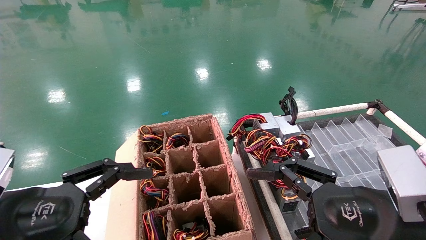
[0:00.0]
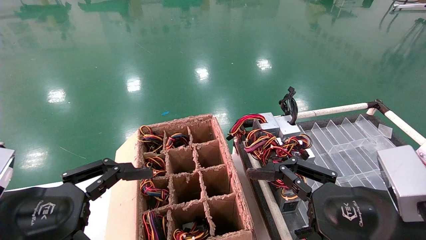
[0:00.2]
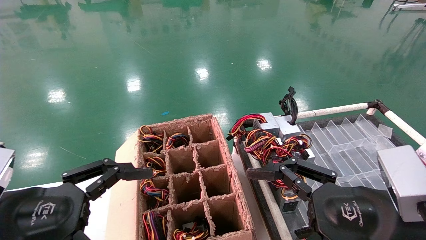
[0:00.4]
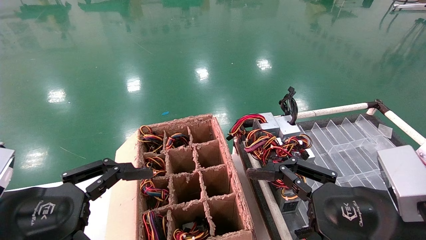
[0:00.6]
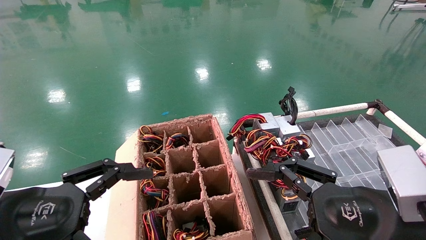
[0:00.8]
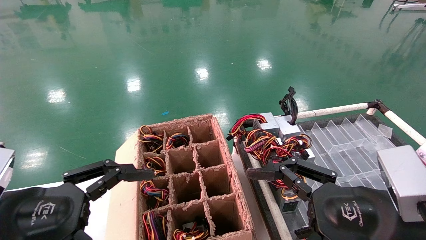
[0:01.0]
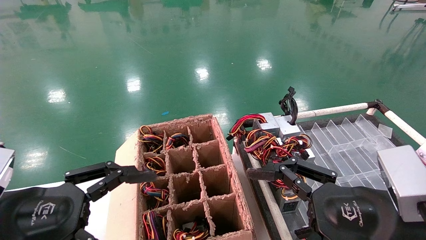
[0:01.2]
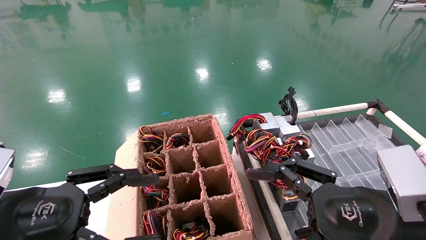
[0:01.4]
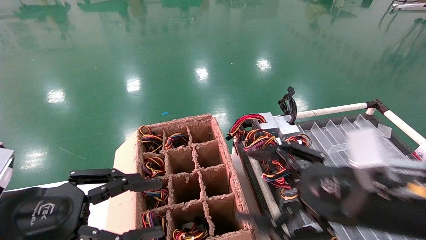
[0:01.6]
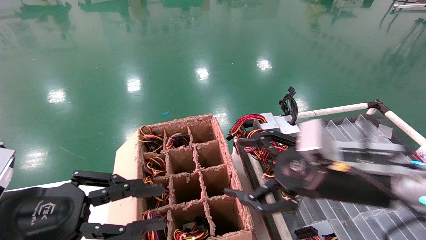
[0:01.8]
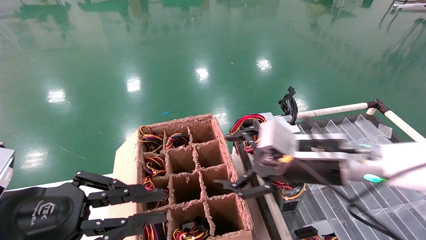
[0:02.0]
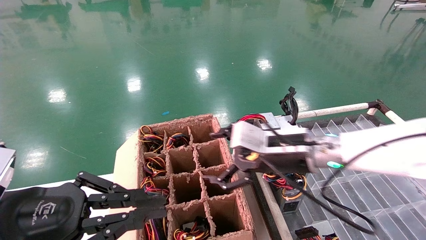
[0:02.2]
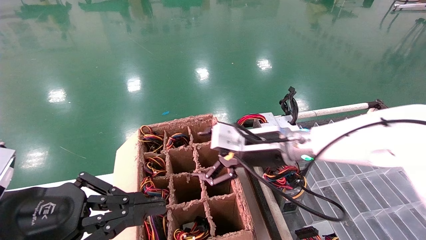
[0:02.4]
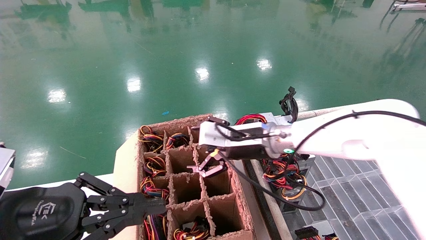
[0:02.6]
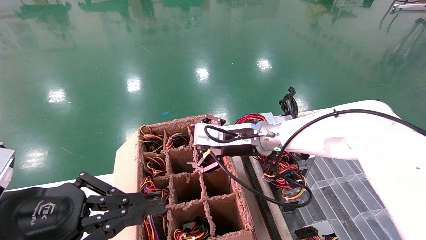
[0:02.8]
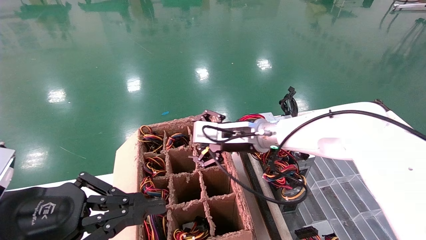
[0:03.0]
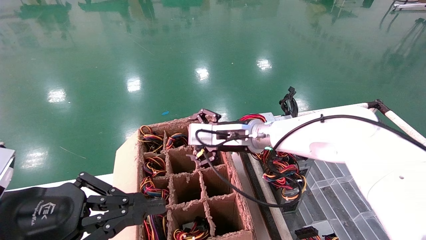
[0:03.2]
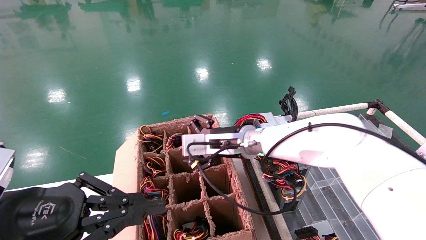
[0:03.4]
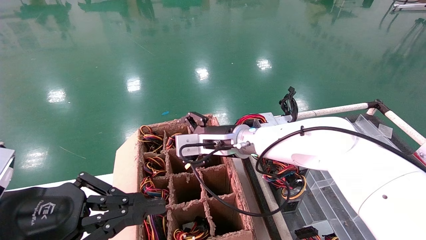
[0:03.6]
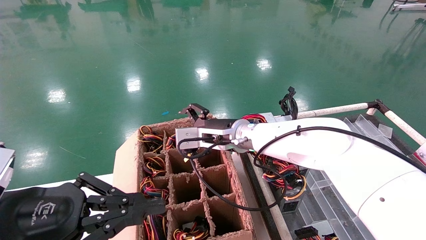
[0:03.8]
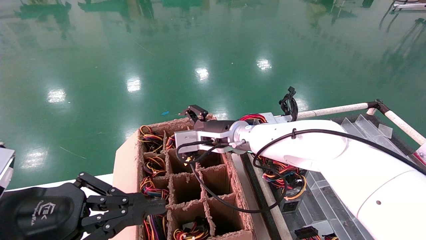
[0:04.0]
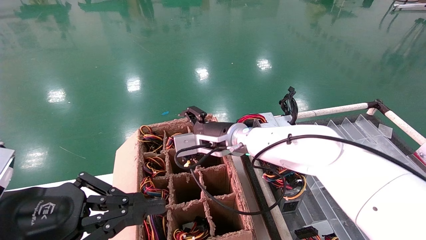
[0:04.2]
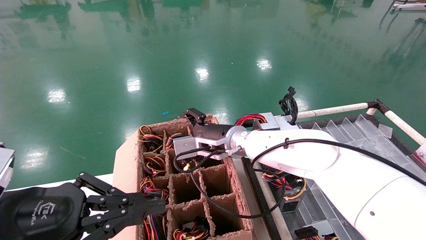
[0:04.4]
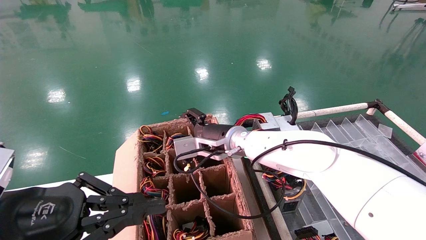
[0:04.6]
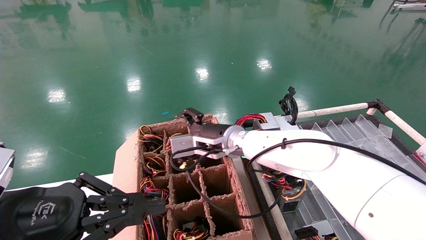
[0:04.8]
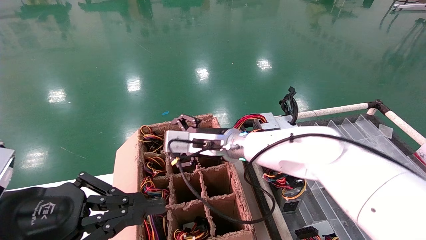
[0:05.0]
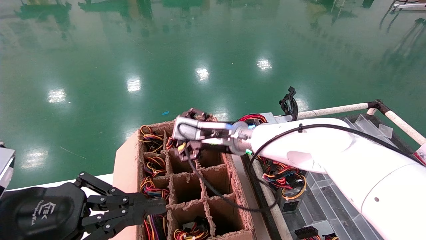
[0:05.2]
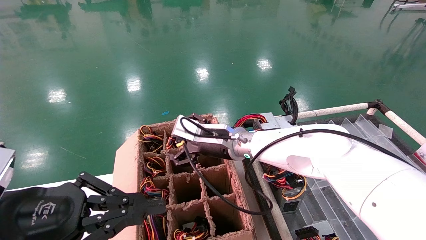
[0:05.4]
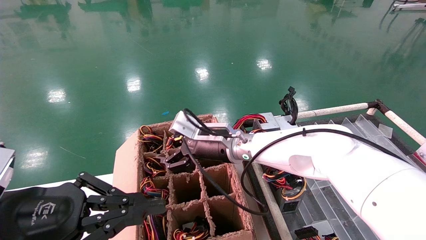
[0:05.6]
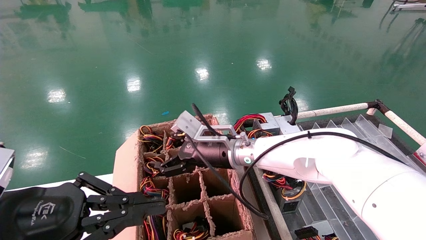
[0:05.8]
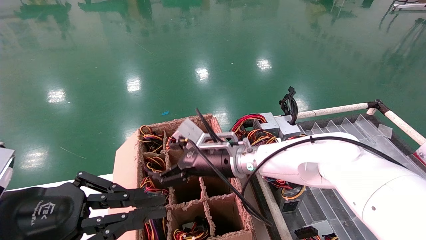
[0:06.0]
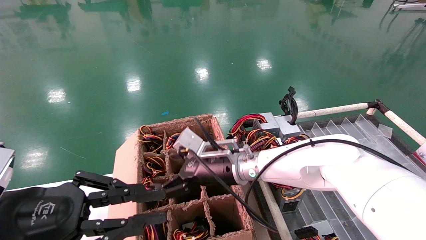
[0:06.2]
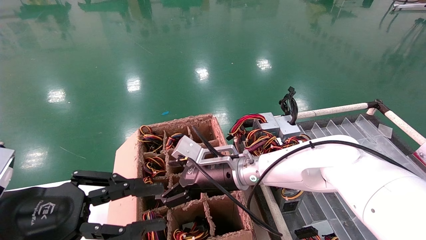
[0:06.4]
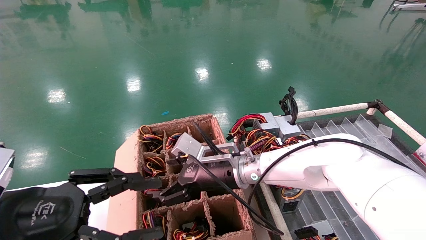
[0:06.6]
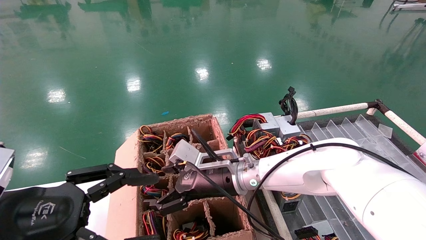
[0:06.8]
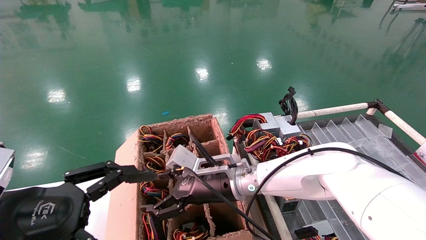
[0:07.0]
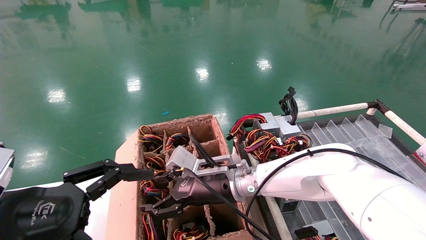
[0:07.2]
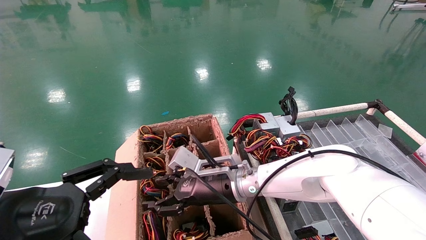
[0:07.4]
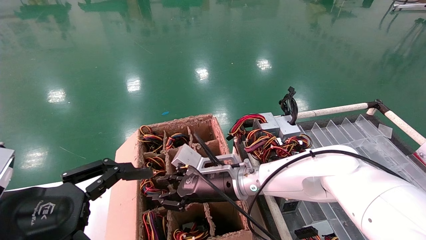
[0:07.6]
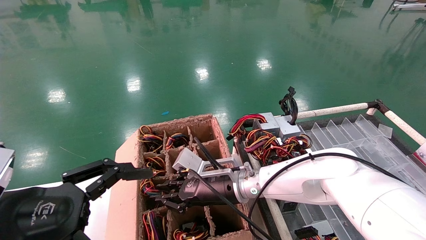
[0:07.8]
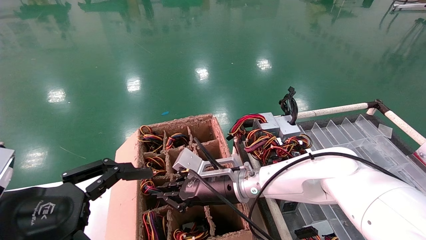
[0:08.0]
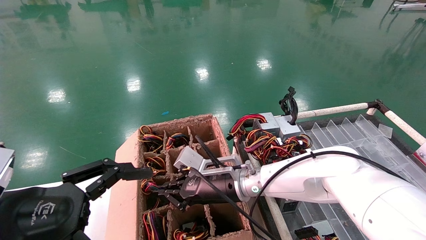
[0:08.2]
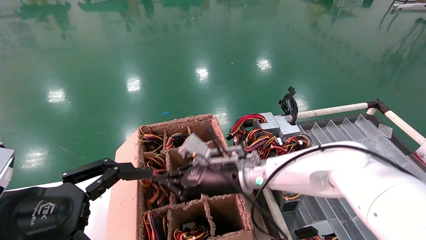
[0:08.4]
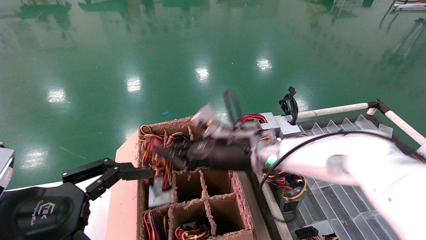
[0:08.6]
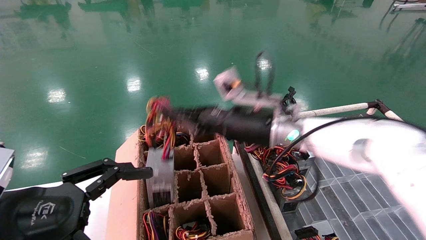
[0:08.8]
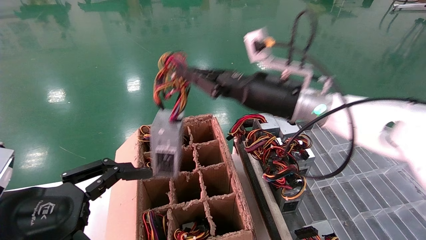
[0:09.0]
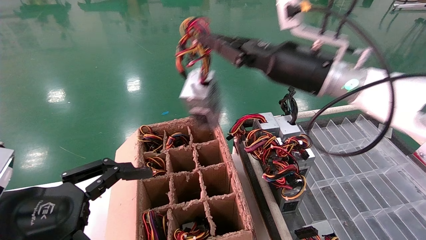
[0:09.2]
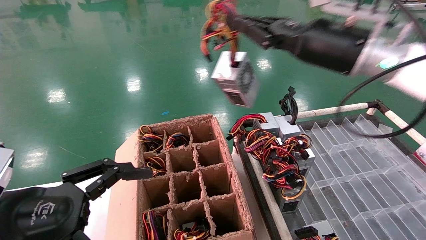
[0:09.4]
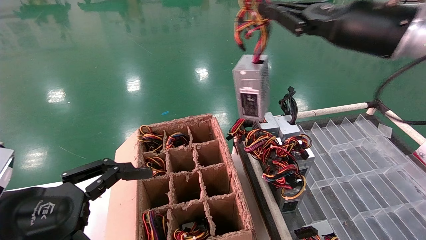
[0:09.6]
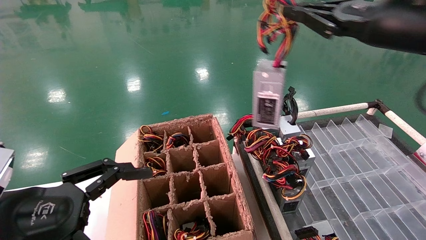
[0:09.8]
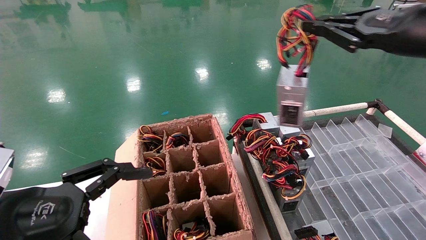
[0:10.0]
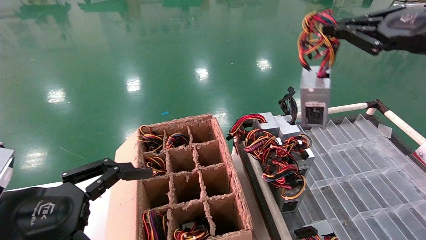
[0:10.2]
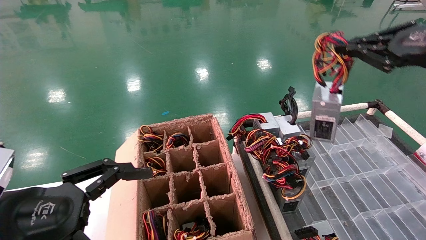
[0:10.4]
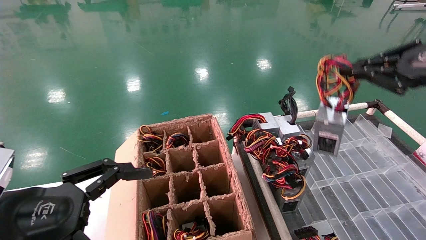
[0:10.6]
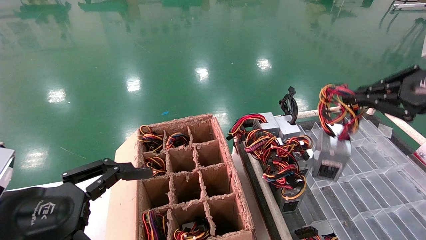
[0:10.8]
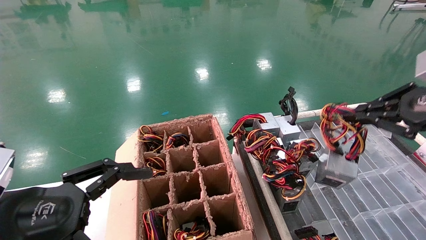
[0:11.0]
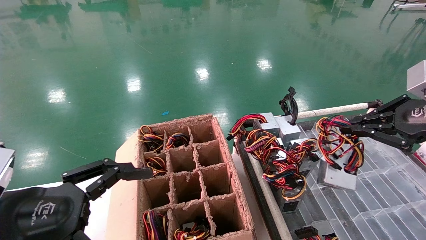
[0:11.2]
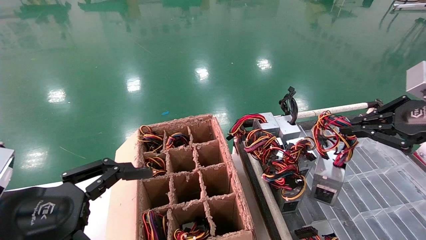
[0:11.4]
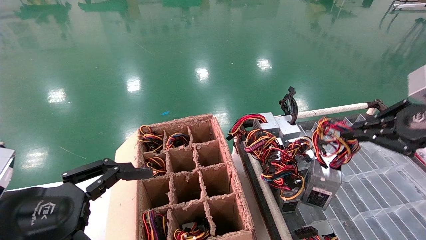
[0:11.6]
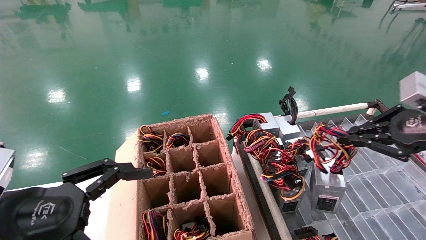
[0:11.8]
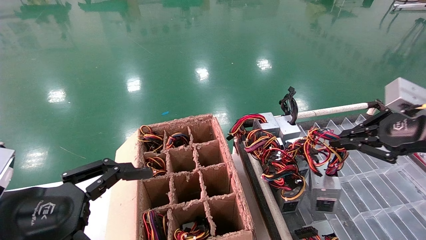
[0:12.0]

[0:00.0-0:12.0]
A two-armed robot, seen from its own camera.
Step, 0:01.4 to 0:08.2: Grab and lift the power supply from the large box.
0:00.0 to 0:01.6: The left gripper closes its fingers.
0:01.6 to 0:03.0: The right gripper goes about 25 cm forward and to the left, while the left gripper closes up.
0:03.0 to 0:04.4: The right gripper moves approximately 5 cm.
0:06.0 to 0:07.6: The left gripper opens up, while the right gripper closes.
0:07.6 to 0:09.0: The right gripper goes some 20 cm upward and to the right, and closes.
0:09.0 to 0:10.4: The right gripper moves to the right and backward, some 25 cm.
0:10.4 to 0:12.0: The right gripper shifts roughly 10 cm downward.

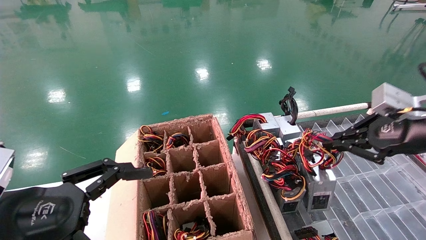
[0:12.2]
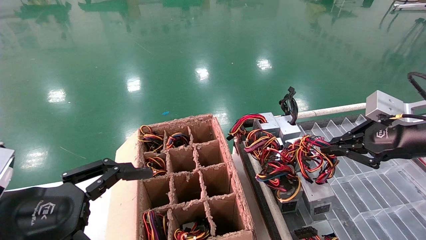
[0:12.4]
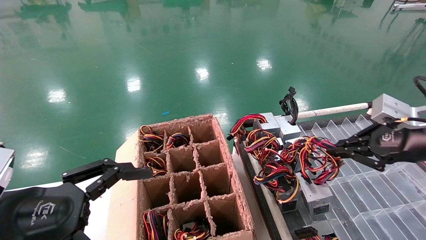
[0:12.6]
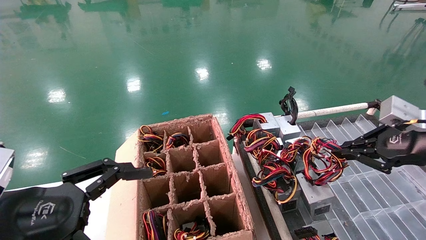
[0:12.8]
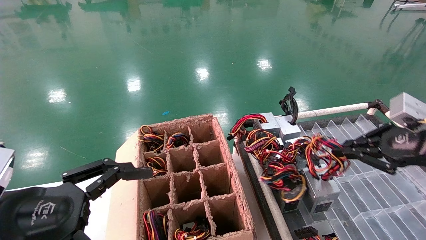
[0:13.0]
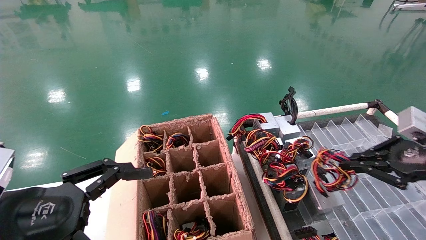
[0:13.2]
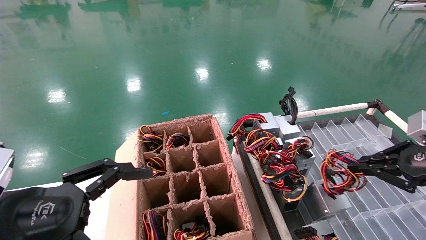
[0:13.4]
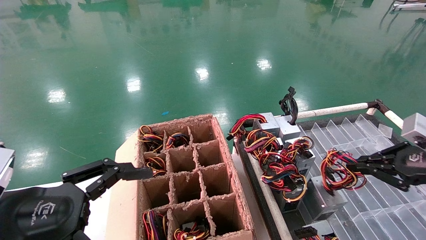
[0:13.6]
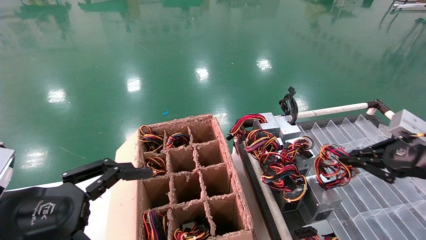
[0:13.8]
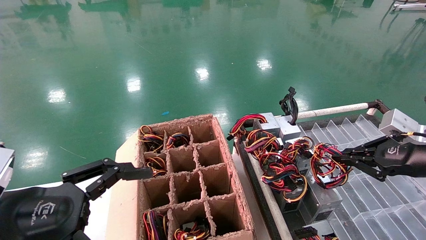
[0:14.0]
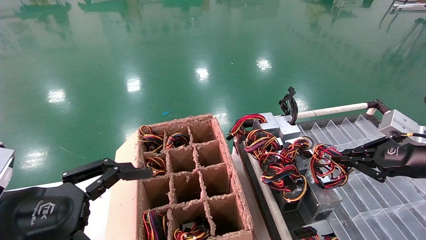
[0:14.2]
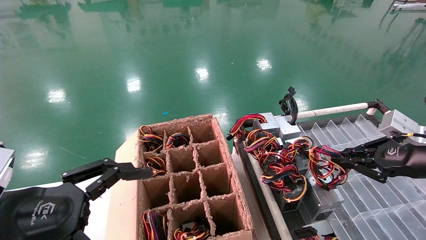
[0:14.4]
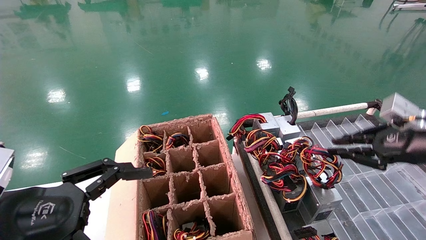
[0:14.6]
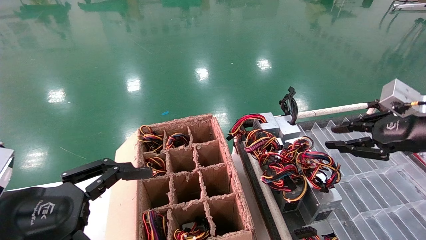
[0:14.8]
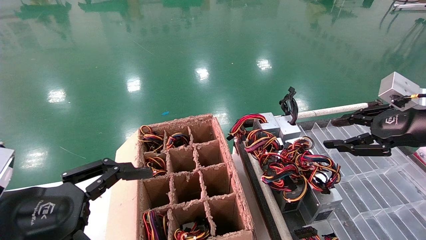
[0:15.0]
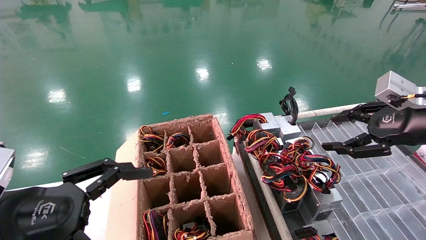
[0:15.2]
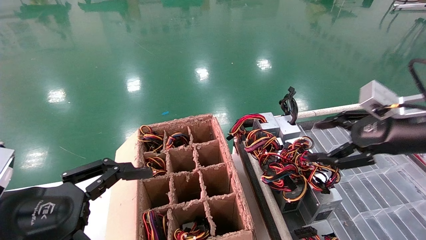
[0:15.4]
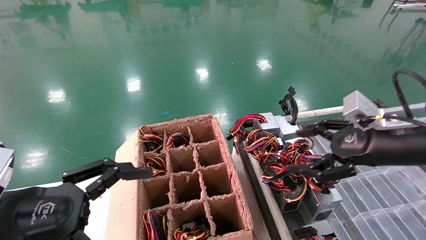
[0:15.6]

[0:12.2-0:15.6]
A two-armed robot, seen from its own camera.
Step, 0:12.2 to 0:14.4: Place the power supply on the operating table.
0:12.2 to 0:13.8: The right gripper goes some 5 cm downward.
0:13.8 to 0:15.6: The right gripper moves to the left, some 10 cm, and opens its fingers.
